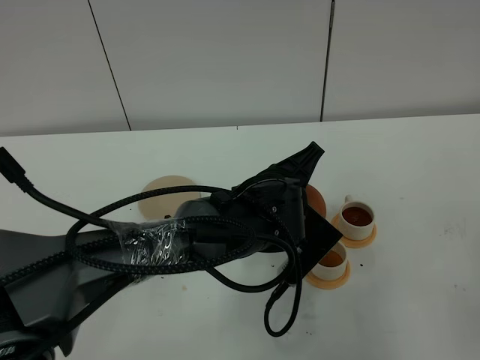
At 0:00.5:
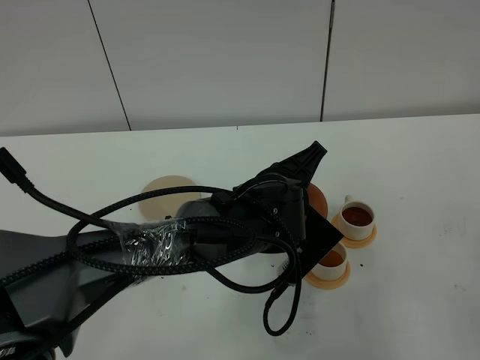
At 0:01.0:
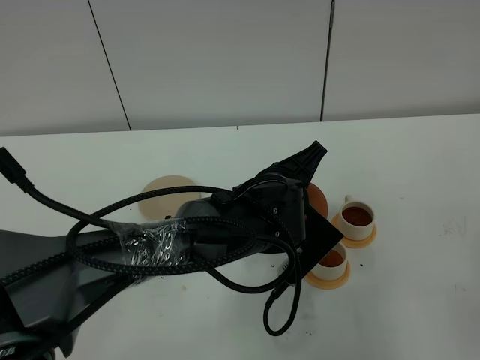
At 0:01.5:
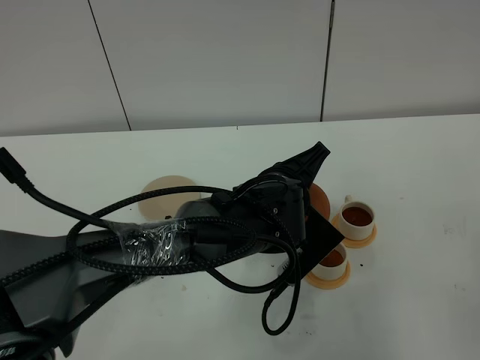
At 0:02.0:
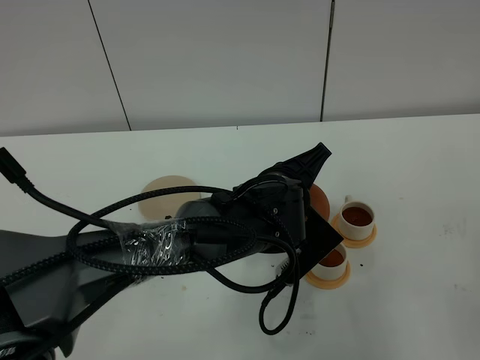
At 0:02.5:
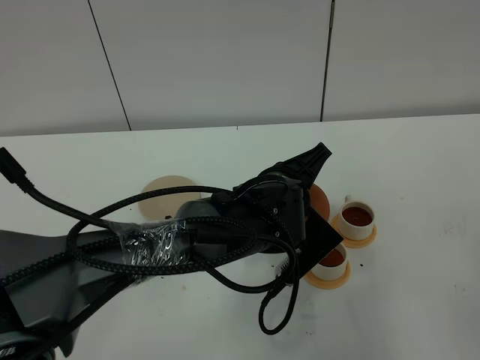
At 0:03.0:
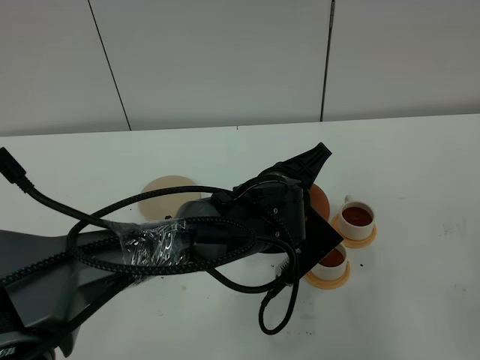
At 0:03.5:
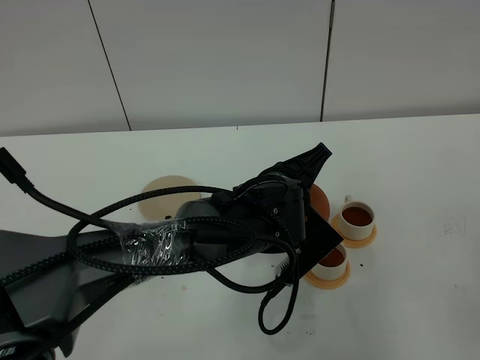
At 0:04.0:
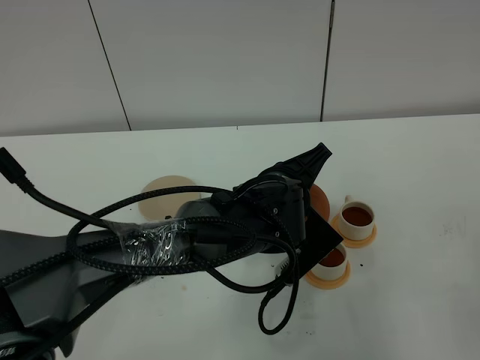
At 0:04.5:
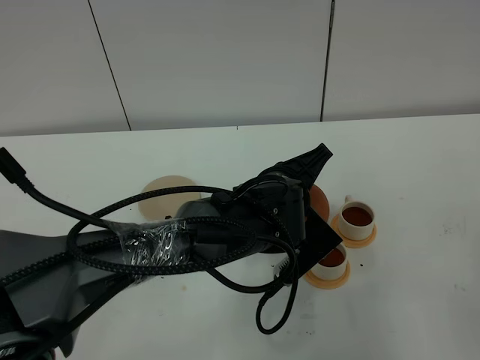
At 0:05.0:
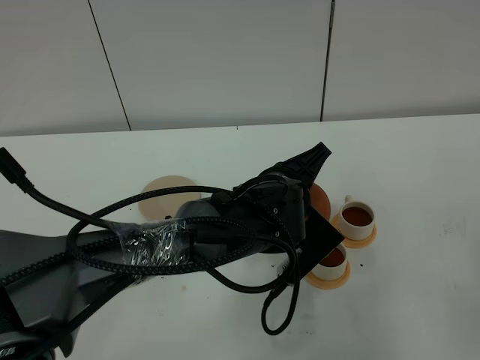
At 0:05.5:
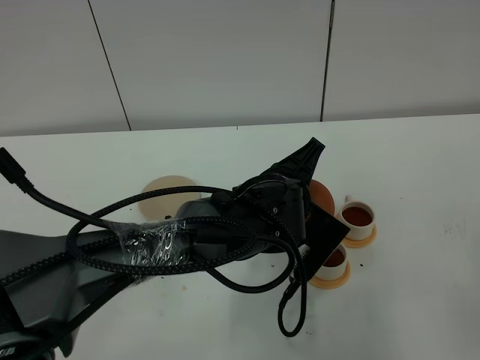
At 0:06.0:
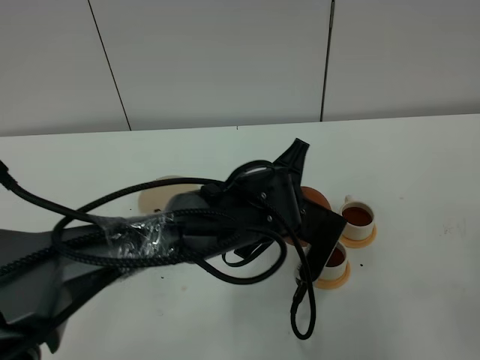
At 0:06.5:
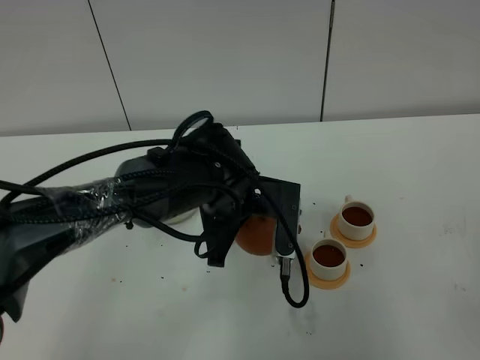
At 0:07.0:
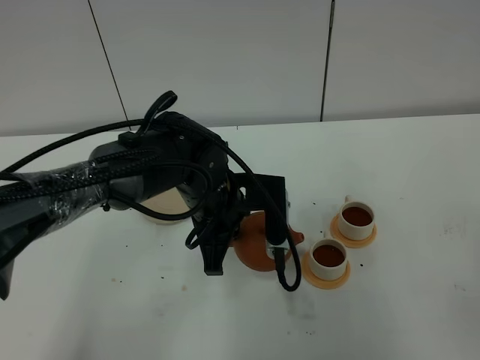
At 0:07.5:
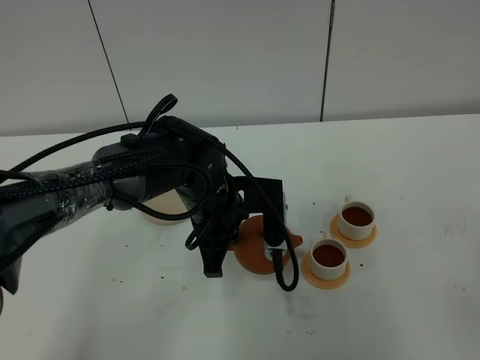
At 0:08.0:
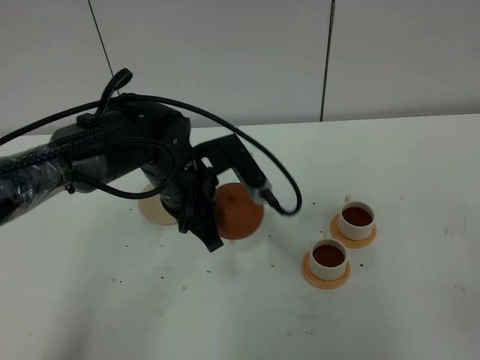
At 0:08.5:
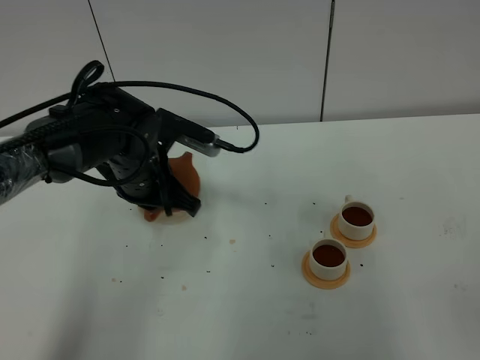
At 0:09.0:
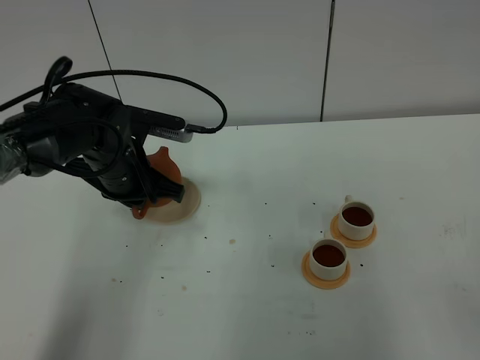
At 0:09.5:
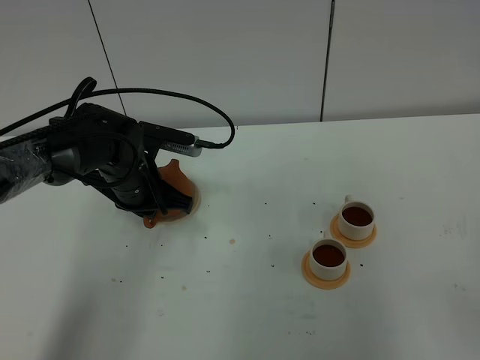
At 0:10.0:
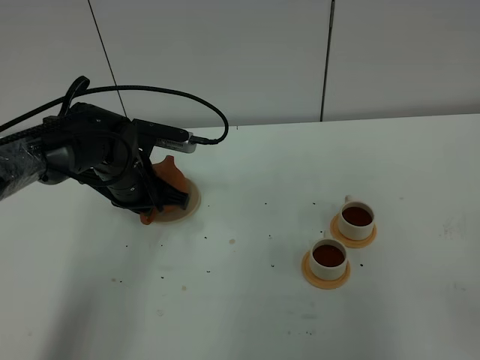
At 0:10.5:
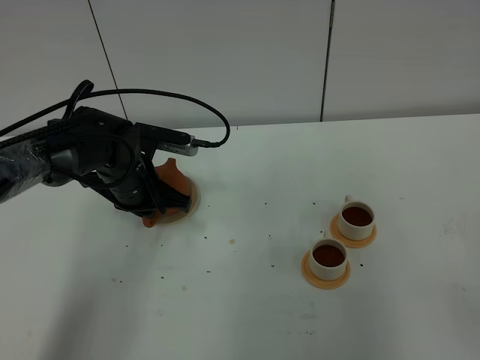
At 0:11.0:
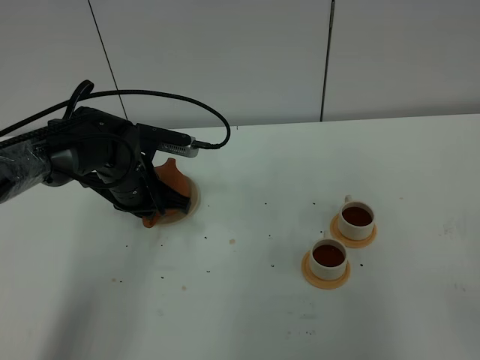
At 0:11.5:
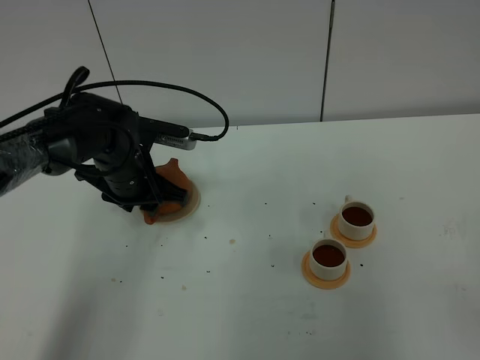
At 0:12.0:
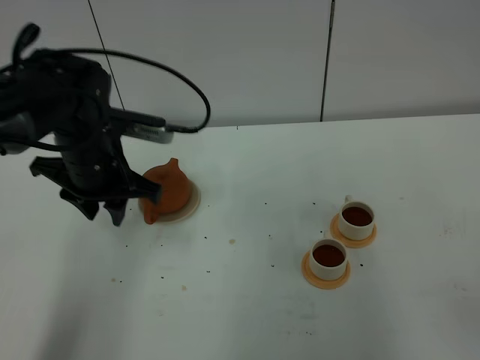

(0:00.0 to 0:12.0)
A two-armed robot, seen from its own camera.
Task of the whole recording: grasp the brown teapot and pour the tea into the two white teacups one by one, put the brown teapot back in its original place.
Step, 0:00.0 - 0:06.0: Pour tea into the teacup with the left gripper.
0:00.0 - 0:04.0: Both grippers stay put.
0:06.0 - 0:08.0: The left gripper is displaced to the left by about 10 cm.
0:08.0 - 0:10.0: The left gripper heads to the left and forward, covering roughly 10 cm.
0:10.0 - 0:12.0: The left gripper moves upward, some 10 cm, and opens up.

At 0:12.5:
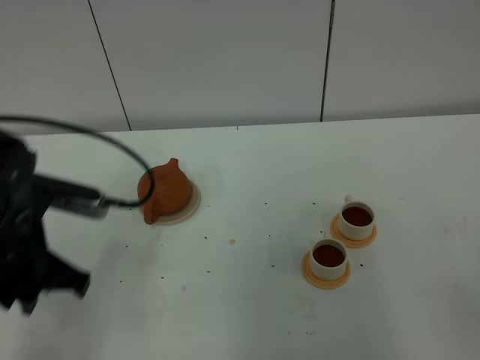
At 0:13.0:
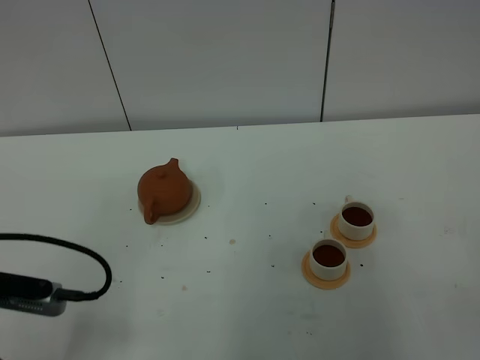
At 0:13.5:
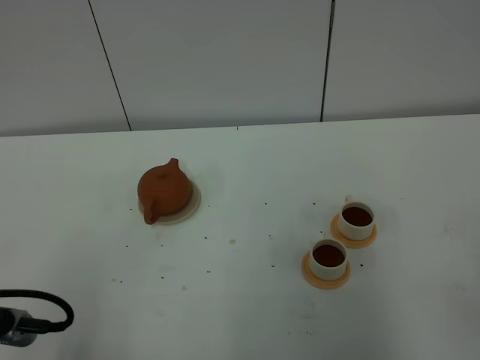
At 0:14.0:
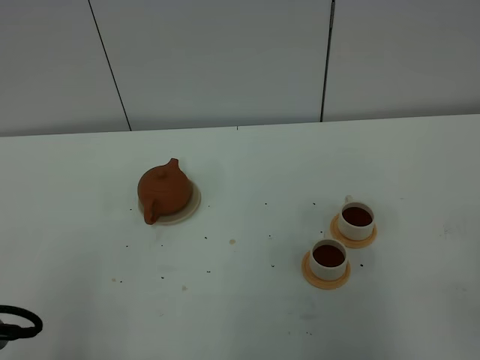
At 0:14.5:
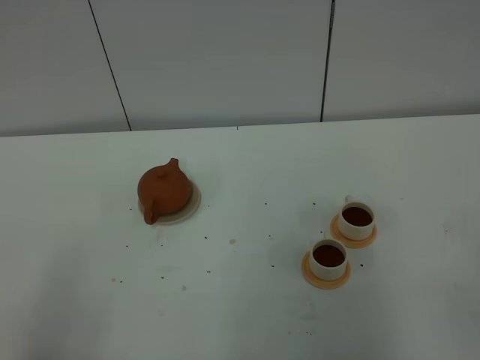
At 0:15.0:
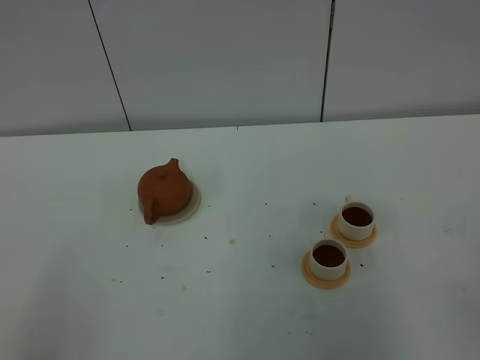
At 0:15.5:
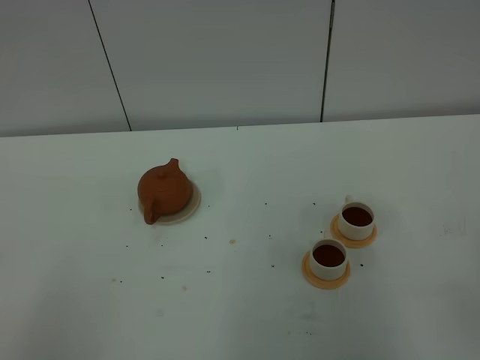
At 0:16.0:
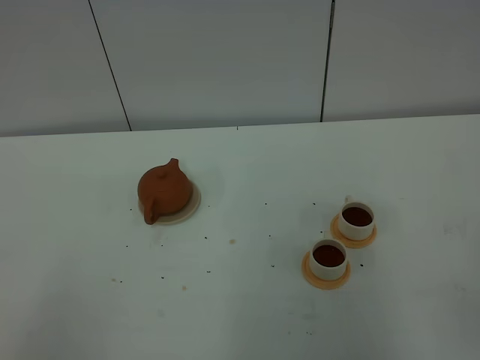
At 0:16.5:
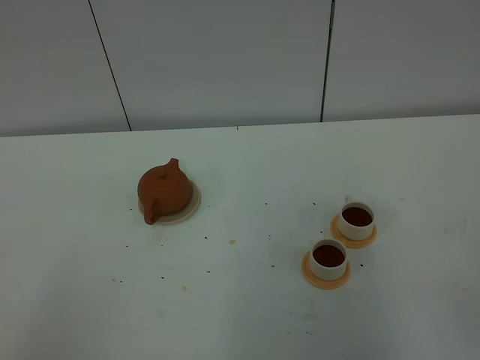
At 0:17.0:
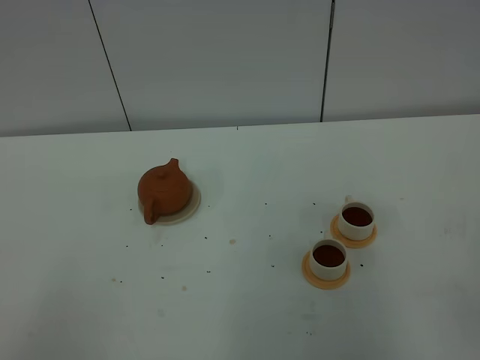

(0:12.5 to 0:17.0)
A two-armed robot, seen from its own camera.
Task of the whole recording: grasp the brown teapot and pour the tea into the two white teacups one by one, put the brown teapot back in its original place.
0:12.5 - 0:14.5: The left gripper moves backward, roughly 20 cm.

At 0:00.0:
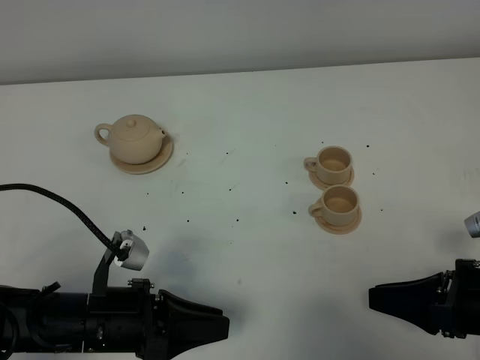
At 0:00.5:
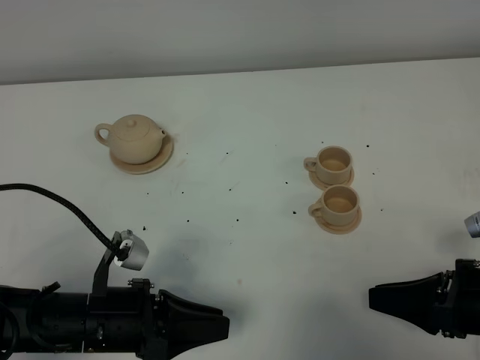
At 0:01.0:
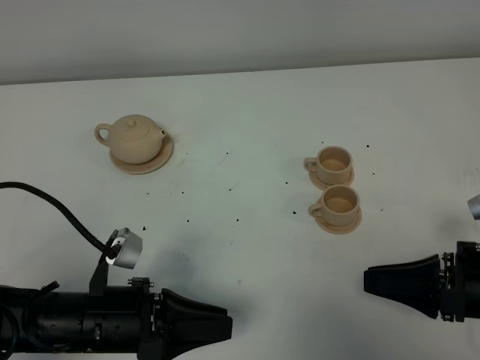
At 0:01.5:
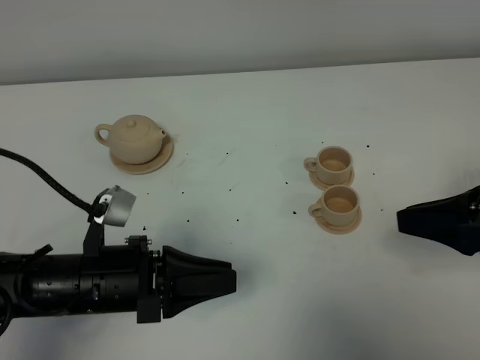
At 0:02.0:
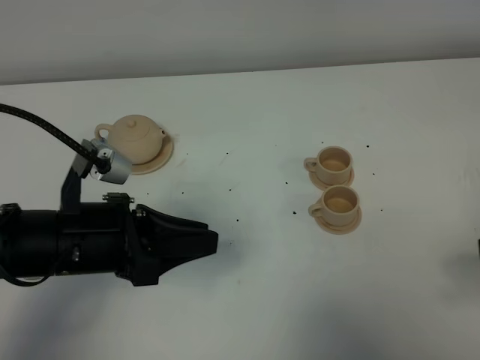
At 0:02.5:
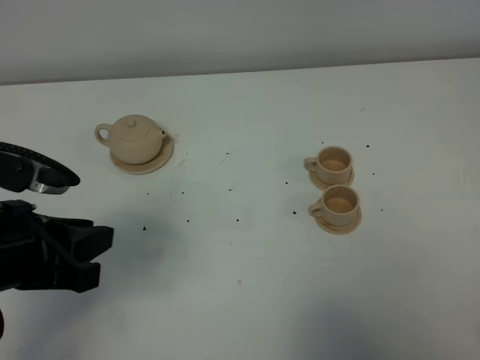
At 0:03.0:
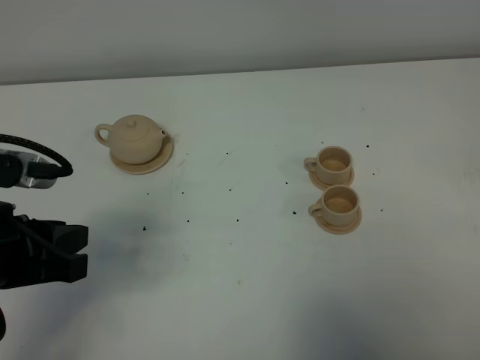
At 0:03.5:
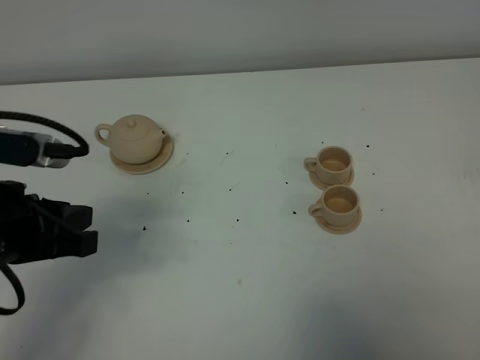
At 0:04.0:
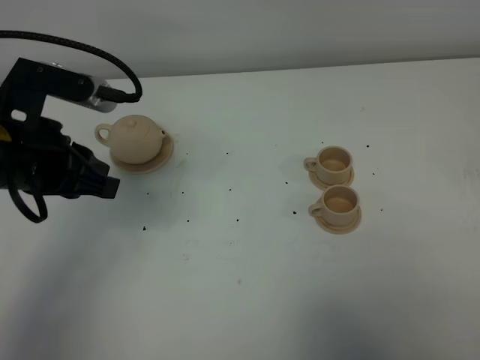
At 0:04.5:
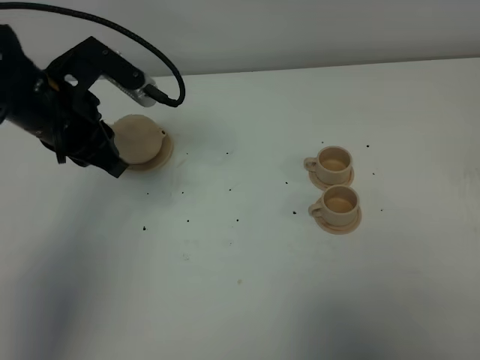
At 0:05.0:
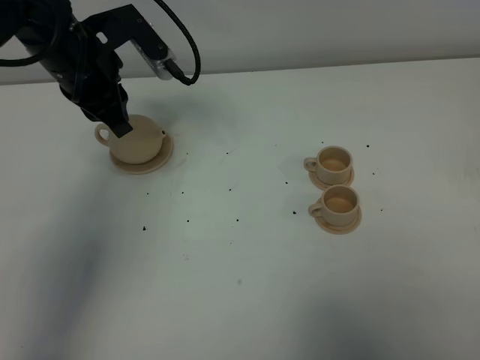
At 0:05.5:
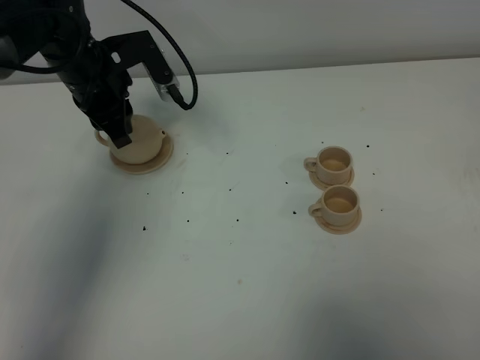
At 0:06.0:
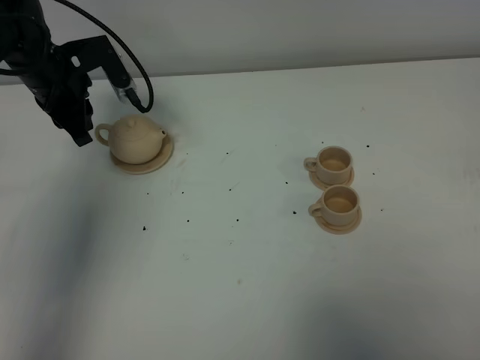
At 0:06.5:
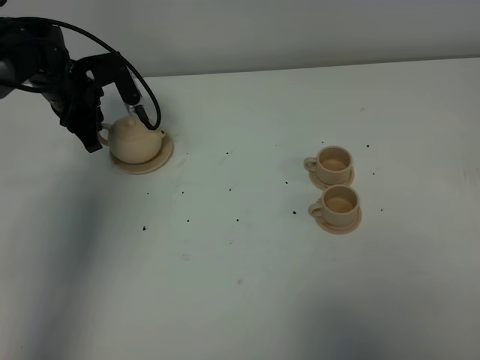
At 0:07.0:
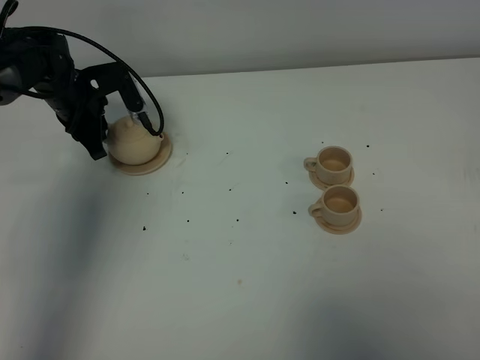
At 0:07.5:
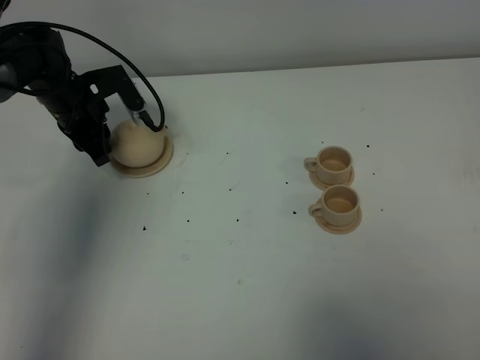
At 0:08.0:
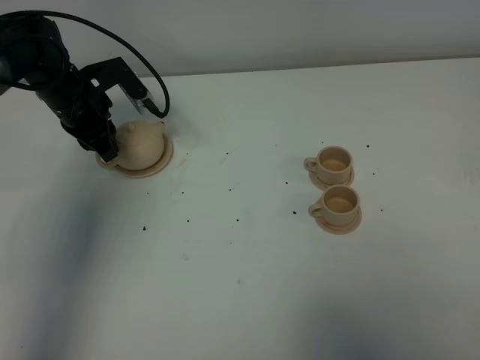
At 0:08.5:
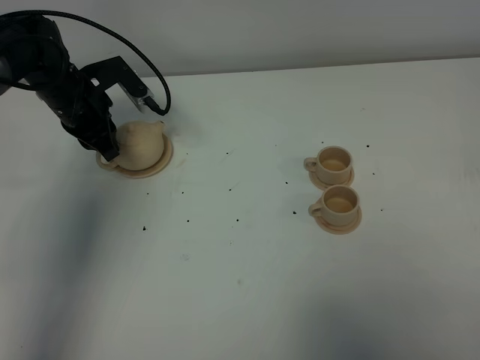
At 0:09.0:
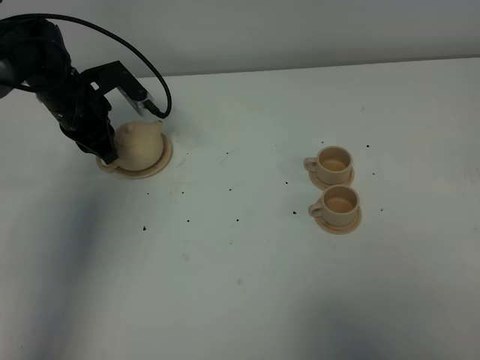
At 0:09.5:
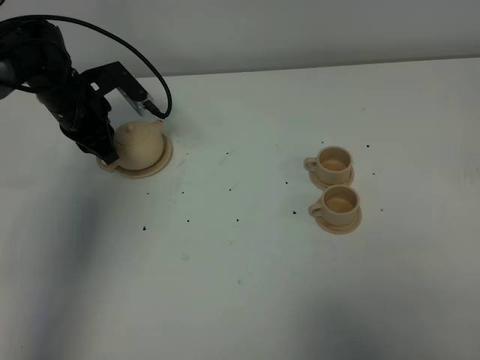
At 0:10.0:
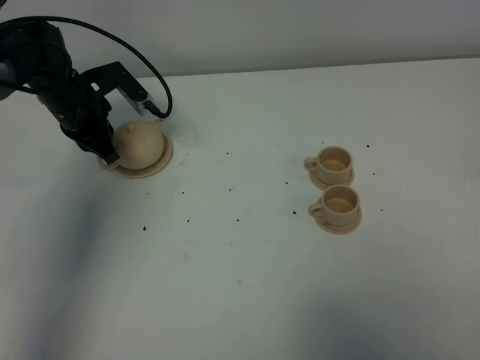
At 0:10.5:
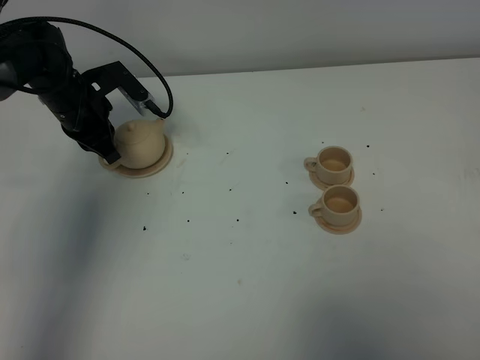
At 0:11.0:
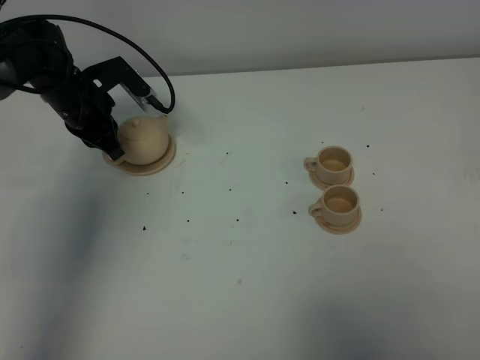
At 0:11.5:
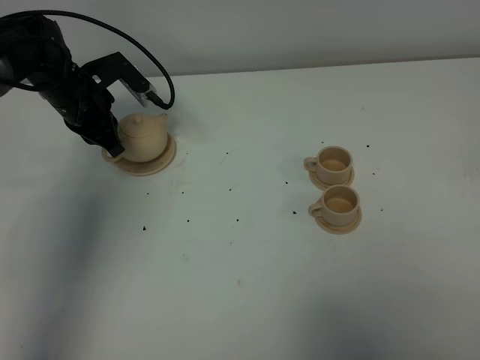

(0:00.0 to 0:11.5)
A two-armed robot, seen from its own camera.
Task of the whole recording: grasp the brown teapot and pour the tea into the two brown teacups one by one, put the brown teapot back in its original place.
Step, 0:00.0 - 0:11.5: Pick up the teapot with the left gripper.
0:00.0 - 0:02.0: Both grippers travel together upward, roughly 10 cm.
0:02.0 - 0:04.0: The left gripper is displaced forward and upward by some 10 cm. The right gripper heads backward, covering roughly 10 cm.
0:04.0 - 0:06.0: The left gripper travels forward by roughly 20 cm.
0:06.0 - 0:07.5: The left gripper is displaced downward by some 5 cm.
0:07.5 - 0:09.5: The grippers move only a little.
0:09.5 - 0:11.5: Both grippers stay put.
